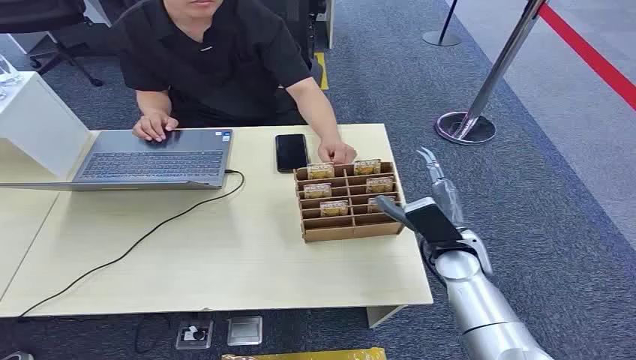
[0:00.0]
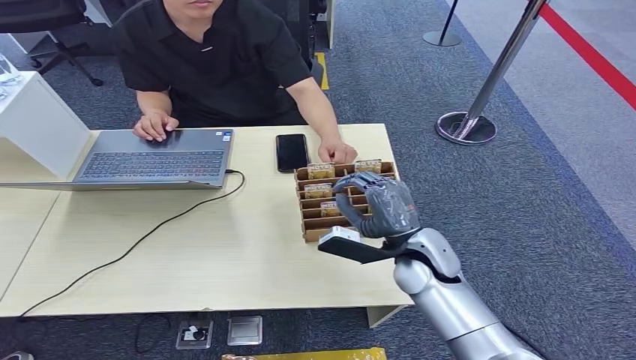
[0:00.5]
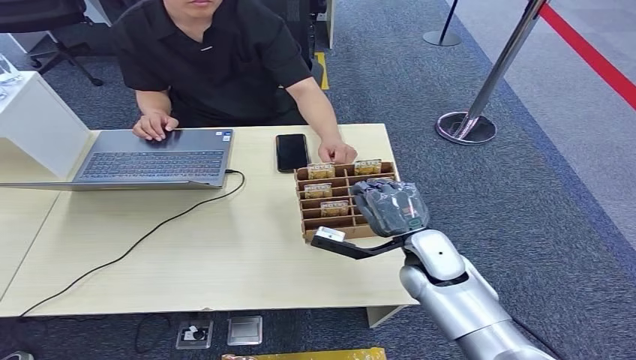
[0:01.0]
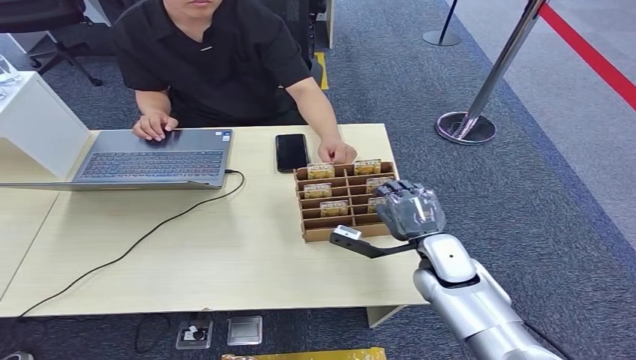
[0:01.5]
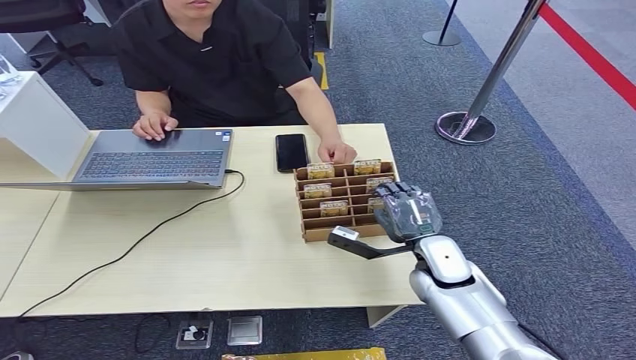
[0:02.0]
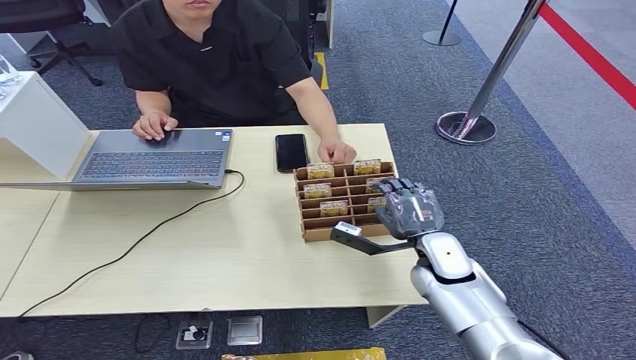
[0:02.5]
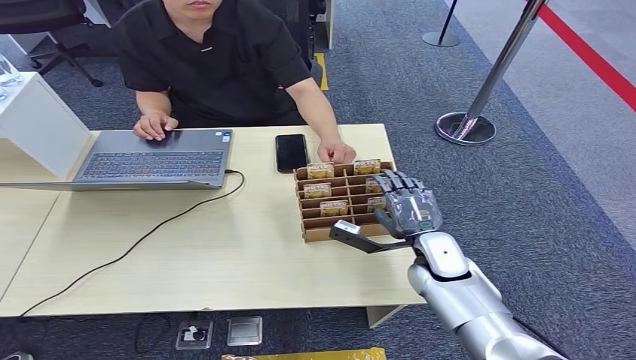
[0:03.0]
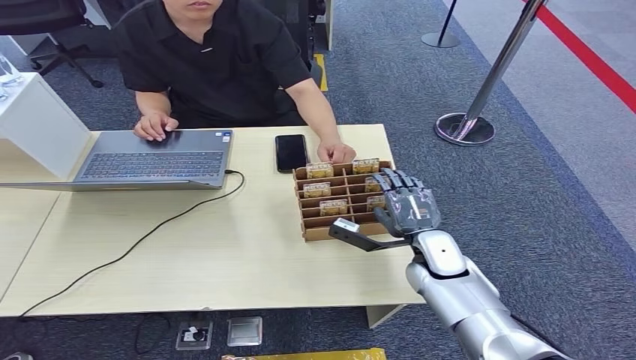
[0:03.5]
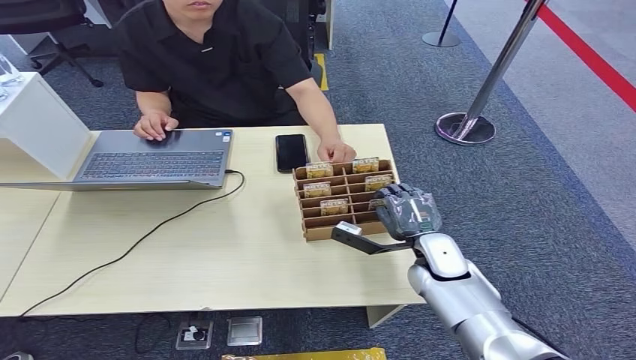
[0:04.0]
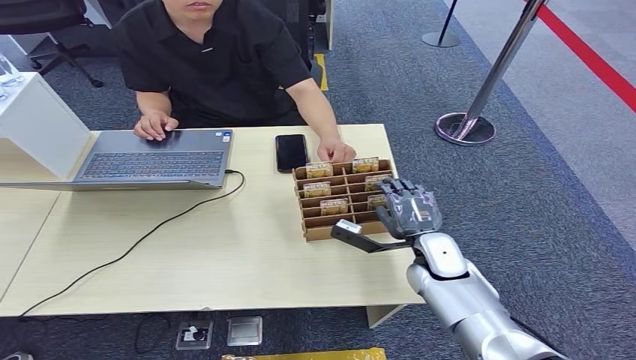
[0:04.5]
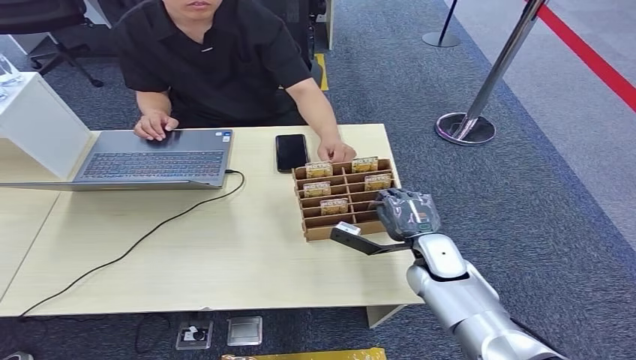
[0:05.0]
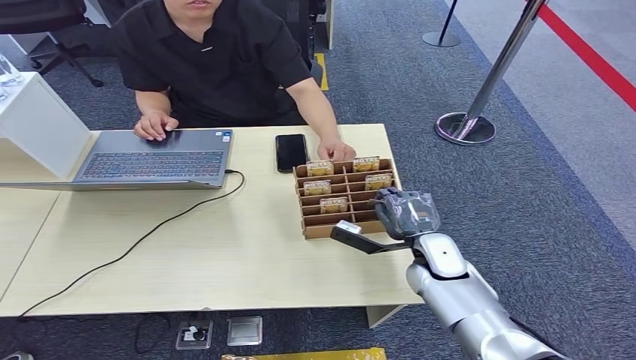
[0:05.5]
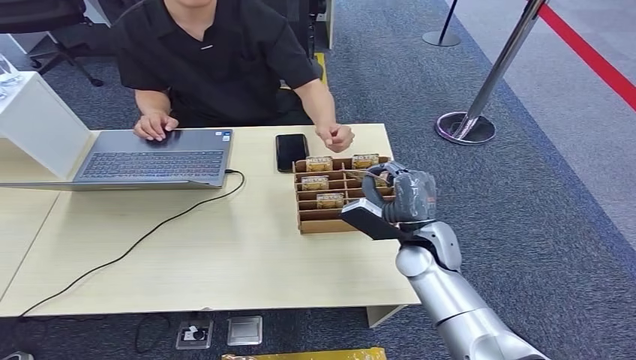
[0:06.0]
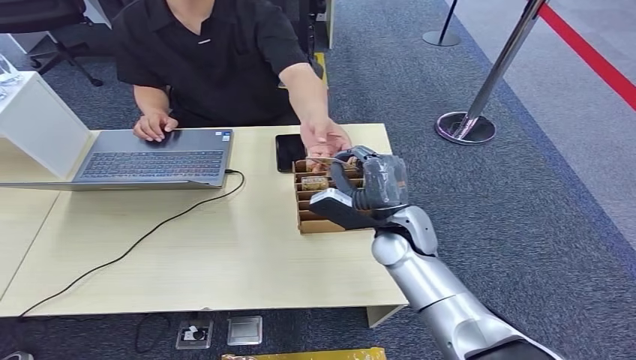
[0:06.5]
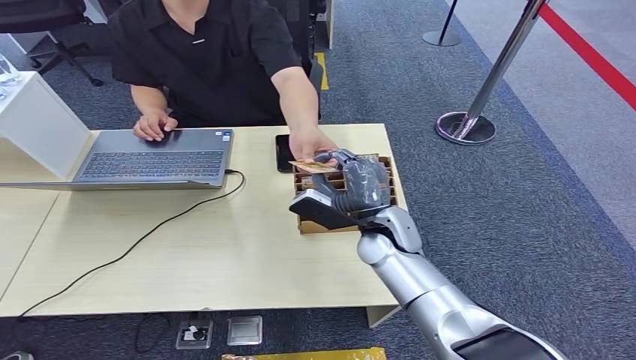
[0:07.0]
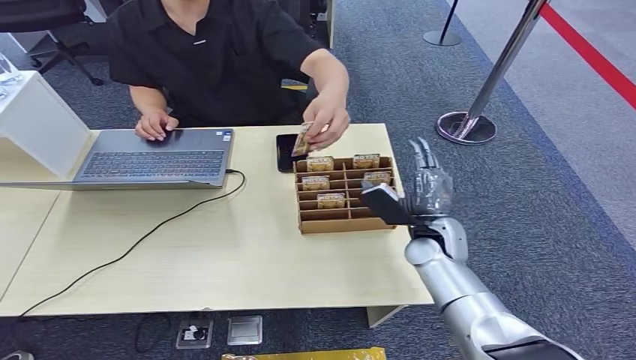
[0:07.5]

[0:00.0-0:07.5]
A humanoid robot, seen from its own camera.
Task of the whole recording: Pick up the card and hand it over to the target person.
Step, 0:00.0 to 0:03.5: Pick up the key card from the card box.
Step, 0:04.0 to 0:07.5: Hand the key card to the target.
0:02.0 to 0:05.5: There are only small adjustments of the hands.
0:05.5 to 0:07.5: The right hand goes about 10 cm to the right.
